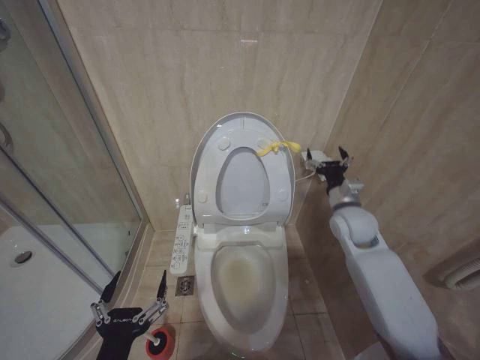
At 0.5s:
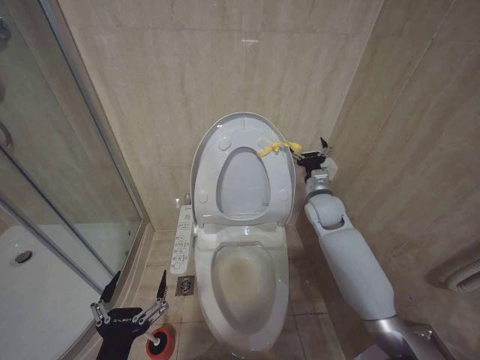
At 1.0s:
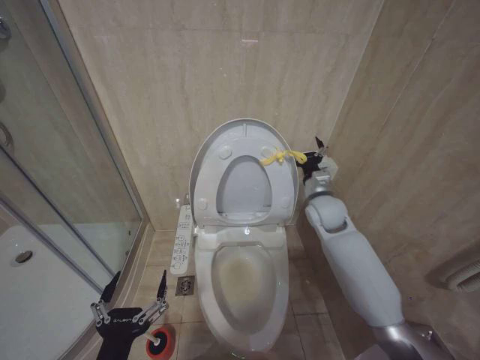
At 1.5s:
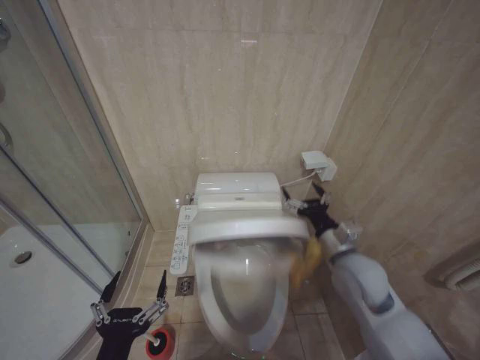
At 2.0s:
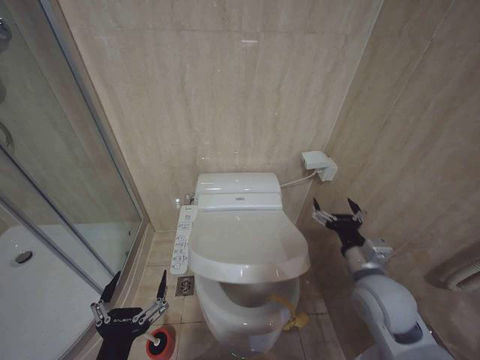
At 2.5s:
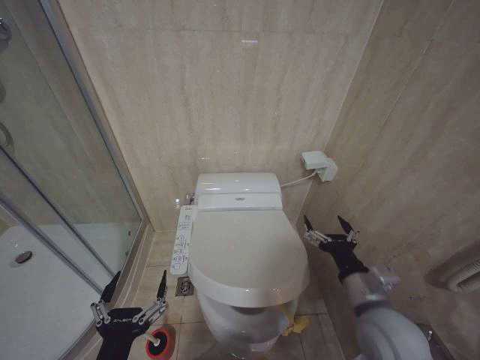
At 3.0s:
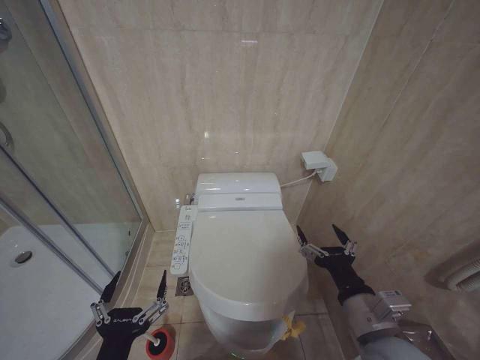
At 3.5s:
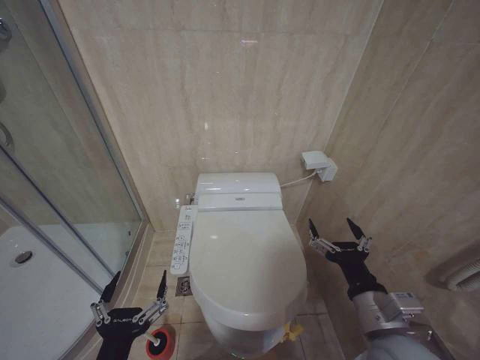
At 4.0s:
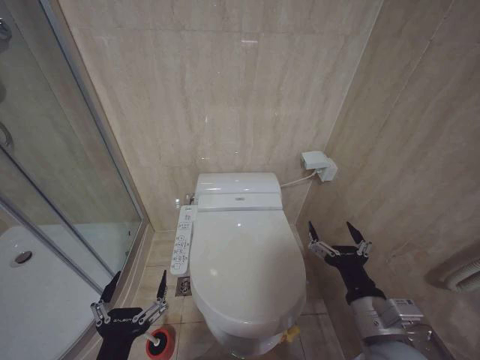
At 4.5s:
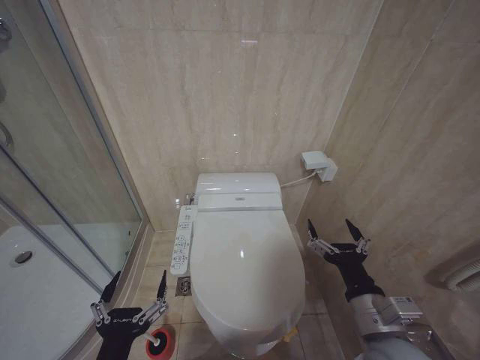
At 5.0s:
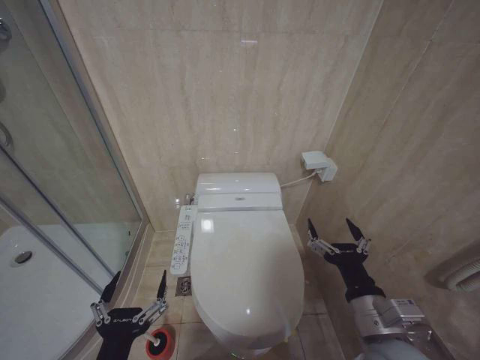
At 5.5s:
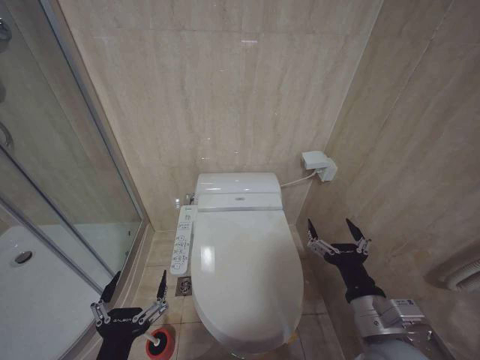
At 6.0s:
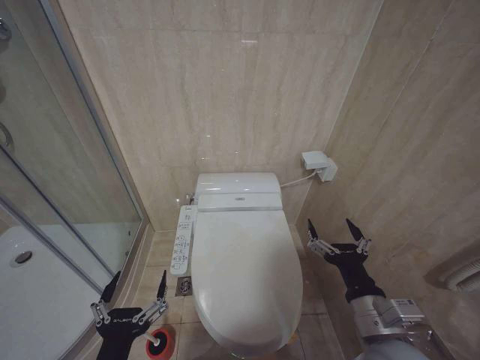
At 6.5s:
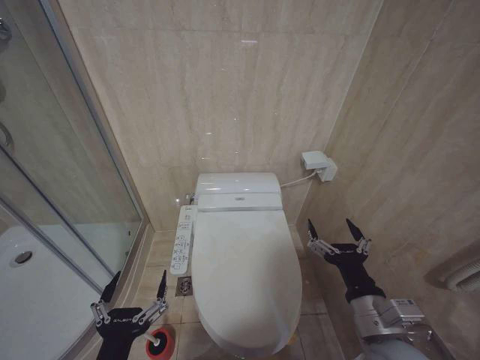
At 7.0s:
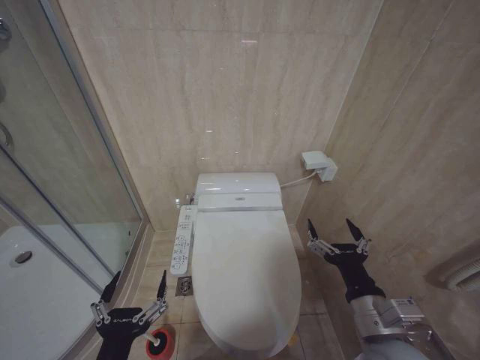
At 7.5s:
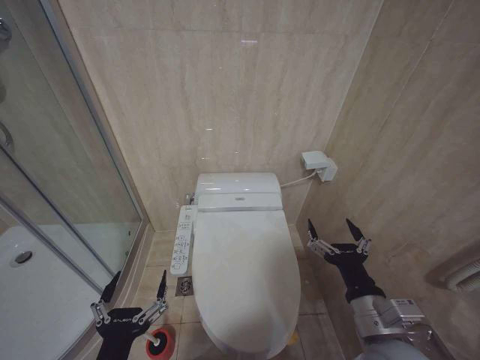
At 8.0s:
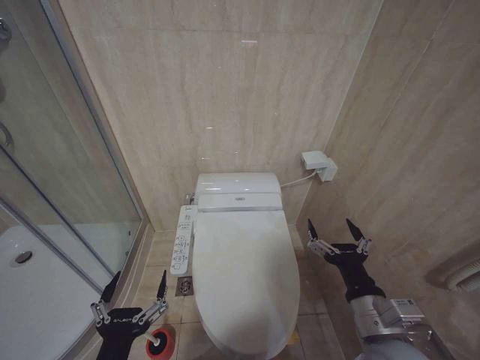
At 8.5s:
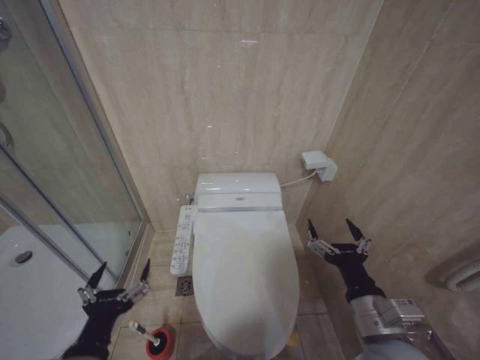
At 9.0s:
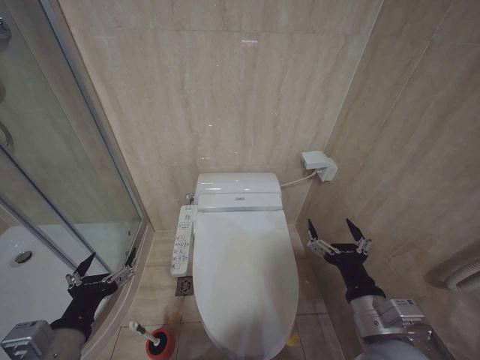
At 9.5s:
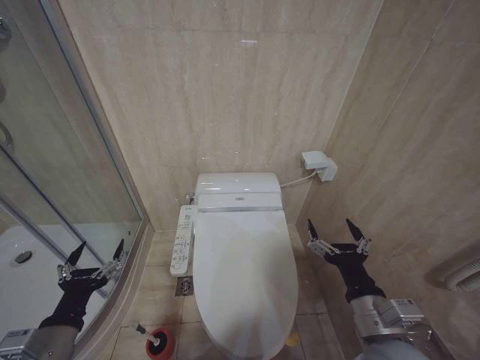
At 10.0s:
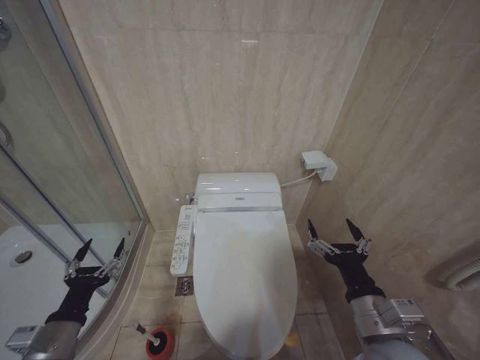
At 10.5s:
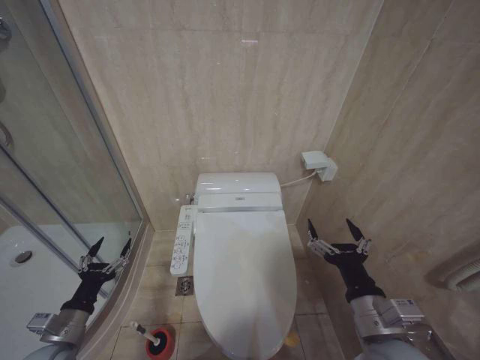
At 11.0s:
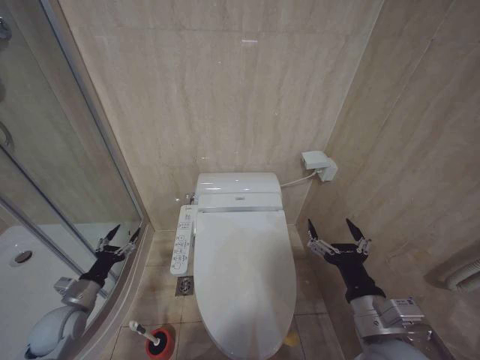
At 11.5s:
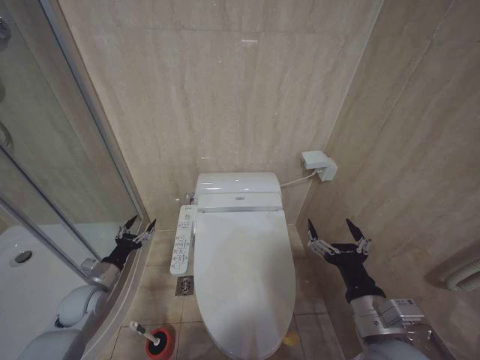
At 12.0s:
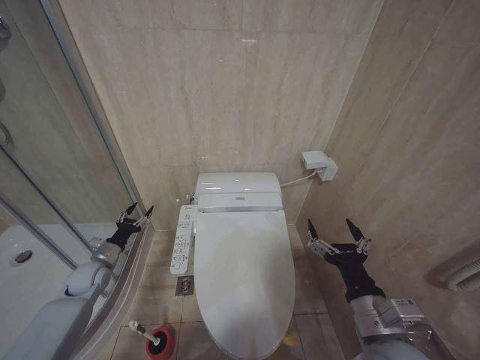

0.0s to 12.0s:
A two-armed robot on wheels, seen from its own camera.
Task of the whole recording: Open the toilet lid, clean the toilet bowl with a toilet brush, close the toilet lid, and flush.
0.0s to 2.0s: The right gripper travels backward by roughly 15 cm.
2.0s to 4.0s: The right gripper is displaced backward by roughly 10 cm.
4.0s to 8.0s: The two grippers keep their place.
8.0s to 10.0s: The left gripper is displaced to the left and forward by some 15 cm.
10.0s to 12.0s: The left gripper heads forward, covering some 25 cm.

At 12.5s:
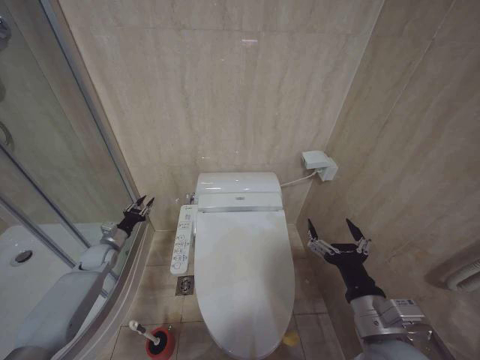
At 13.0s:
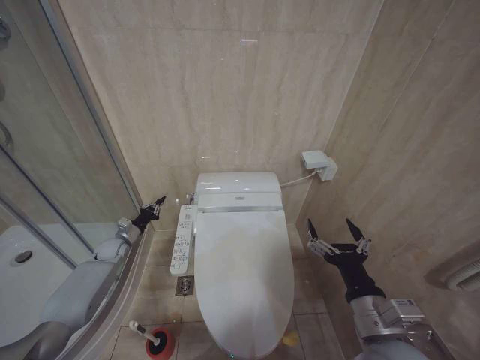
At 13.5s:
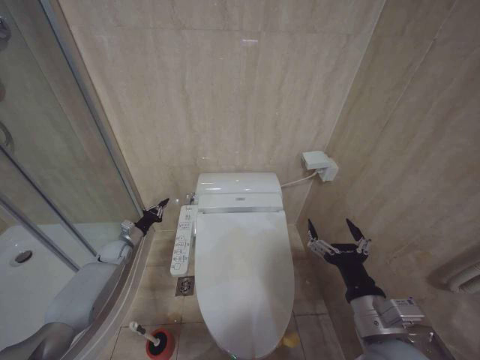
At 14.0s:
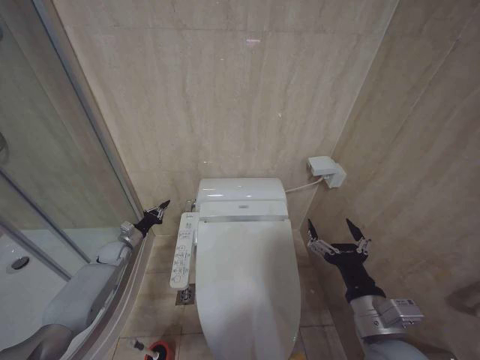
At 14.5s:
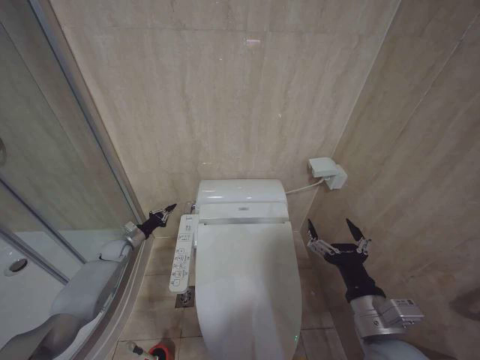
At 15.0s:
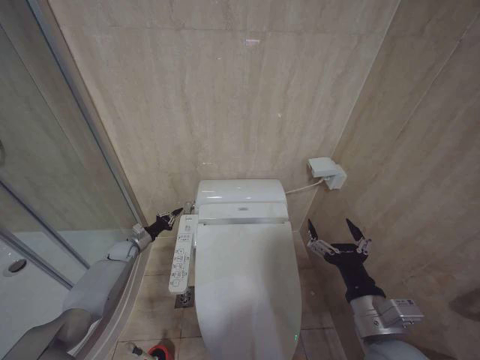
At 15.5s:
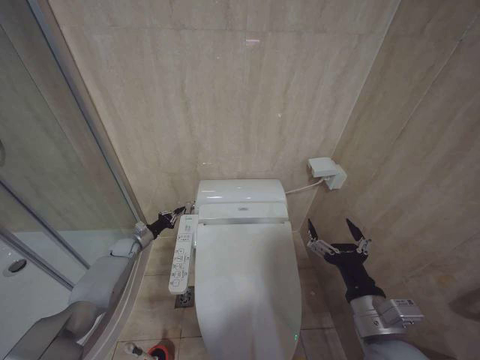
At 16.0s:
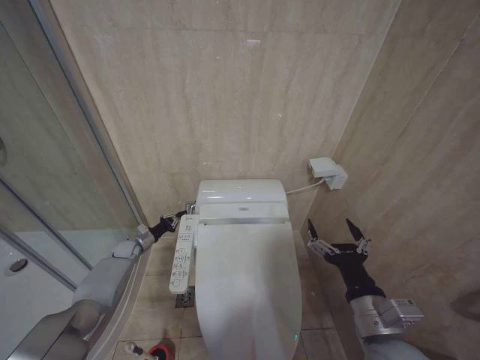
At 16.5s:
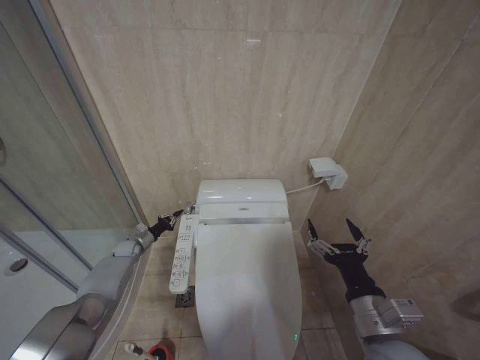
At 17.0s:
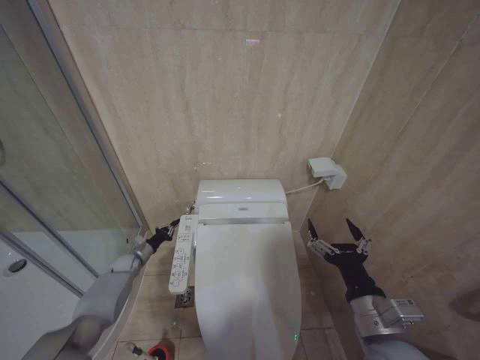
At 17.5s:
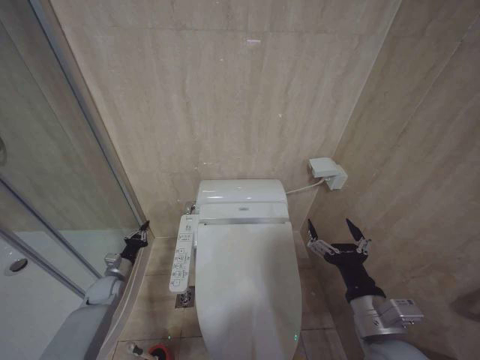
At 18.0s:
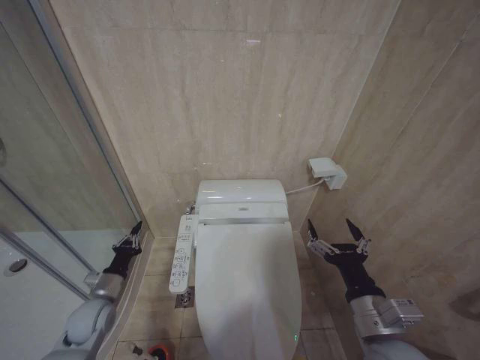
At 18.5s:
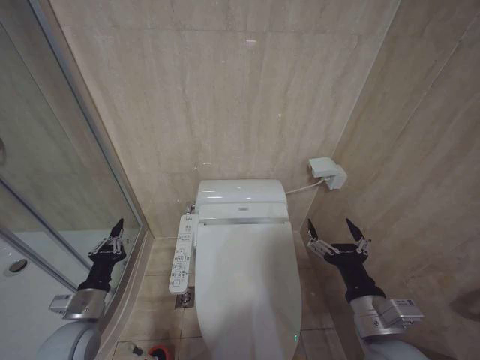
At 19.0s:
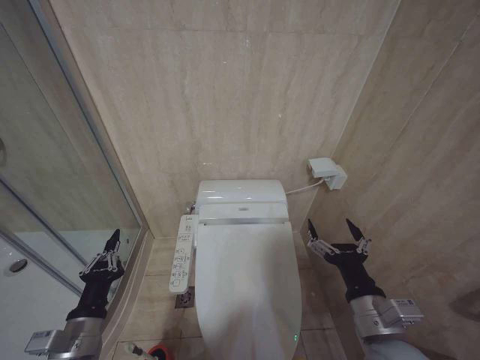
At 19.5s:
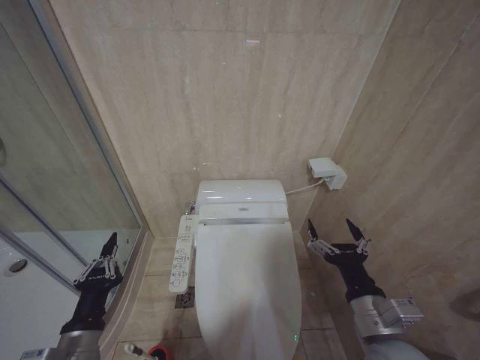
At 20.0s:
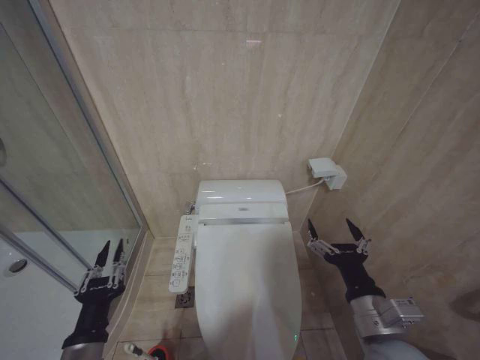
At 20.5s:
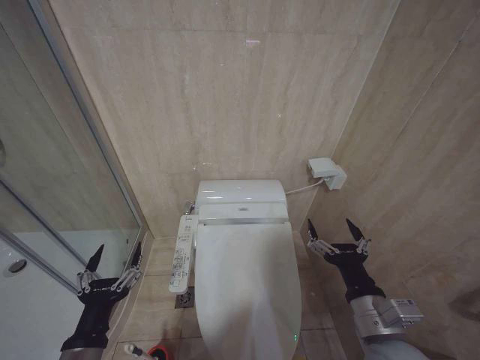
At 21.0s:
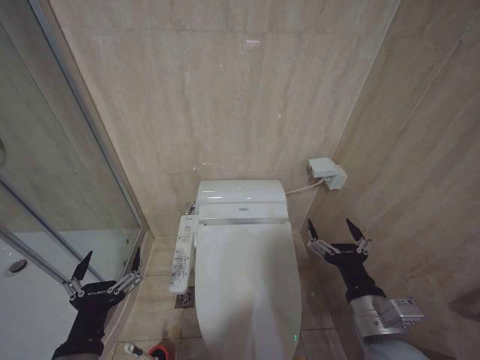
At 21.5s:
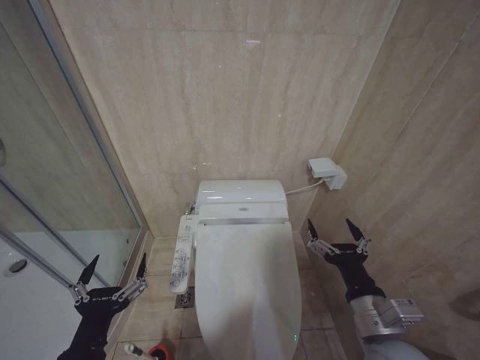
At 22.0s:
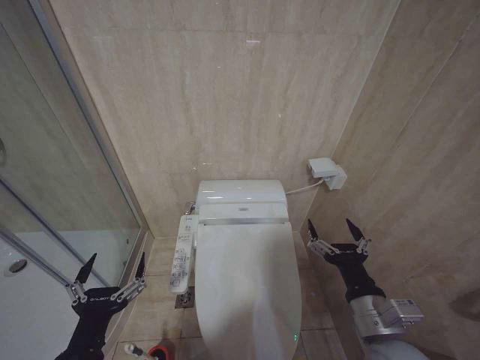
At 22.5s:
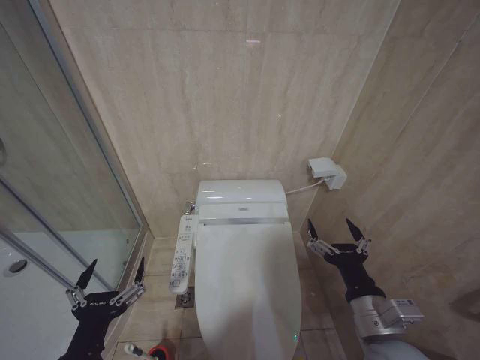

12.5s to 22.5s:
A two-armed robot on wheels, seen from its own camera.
Task of the whole recording: Open the toilet lid, clean the toilet bowl with a toilet brush, close the toilet lid, and flush.
12.5s to 14.5s: The left gripper moves roughly 5 cm, and closes up.
14.5s to 16.5s: There are only small adjustments of the grippers.
16.5s to 18.5s: The left gripper shifts roughly 30 cm backward.
18.5s to 20.5s: The left gripper moves backward, to the right and upward, some 15 cm, and opens up.
20.5s to 22.5s: The grippers make only small movements.
